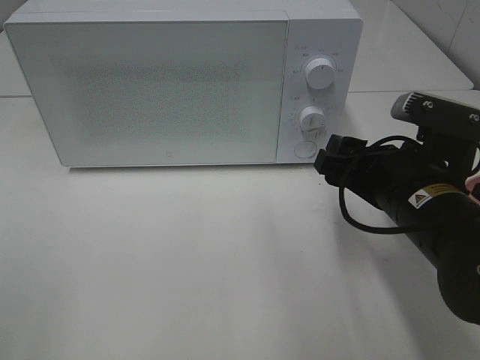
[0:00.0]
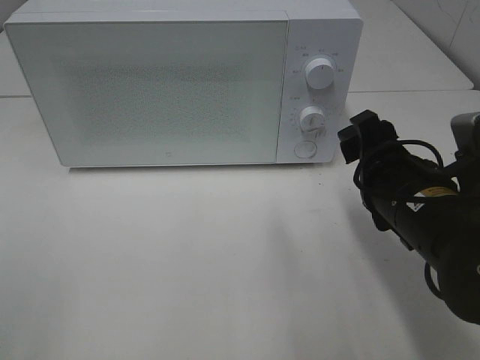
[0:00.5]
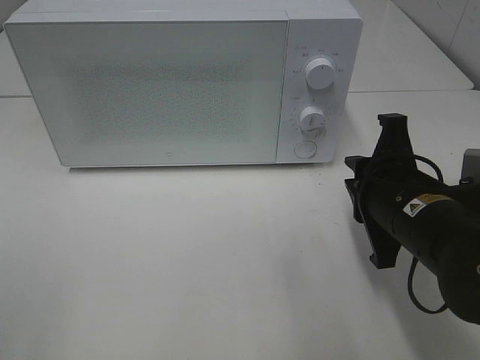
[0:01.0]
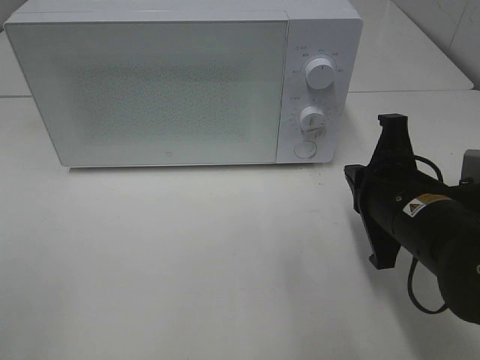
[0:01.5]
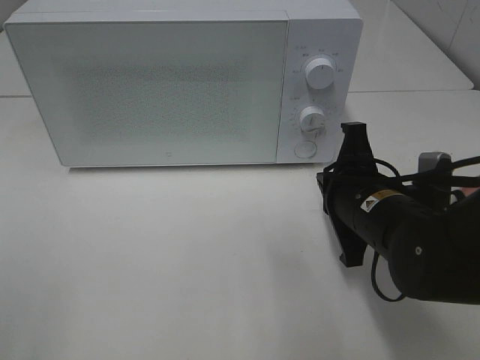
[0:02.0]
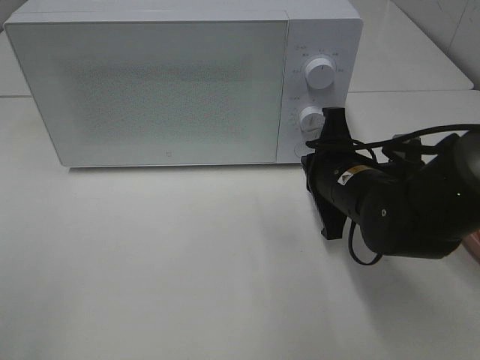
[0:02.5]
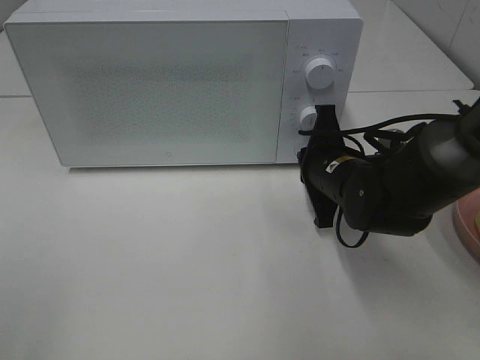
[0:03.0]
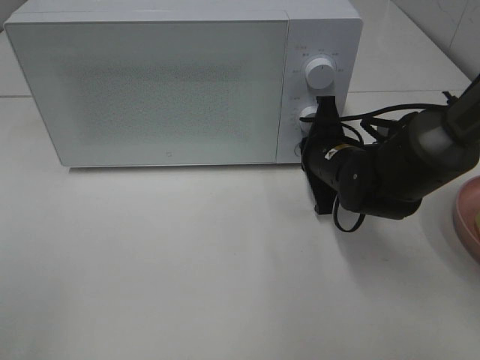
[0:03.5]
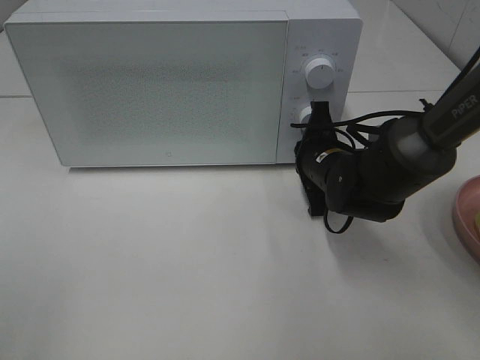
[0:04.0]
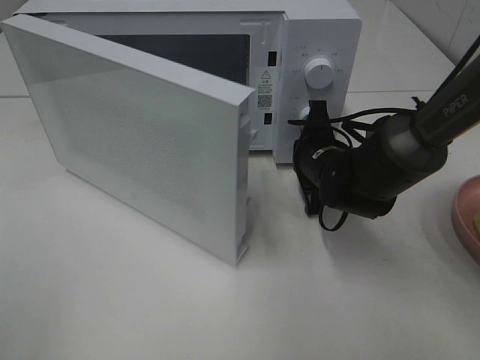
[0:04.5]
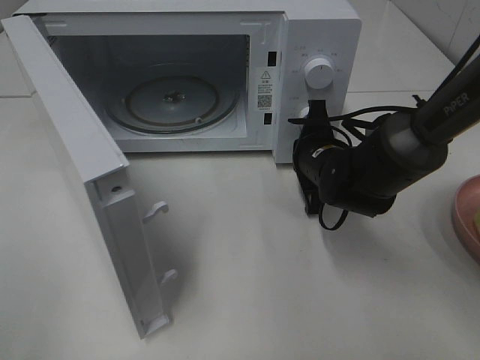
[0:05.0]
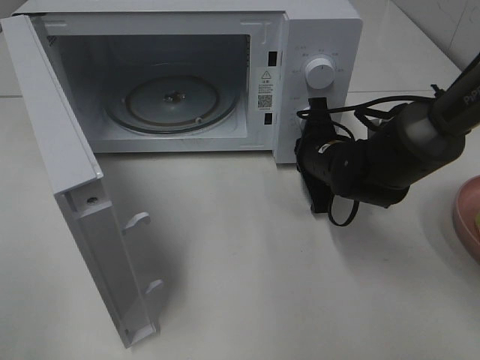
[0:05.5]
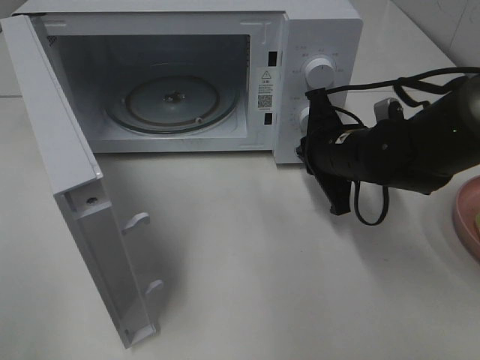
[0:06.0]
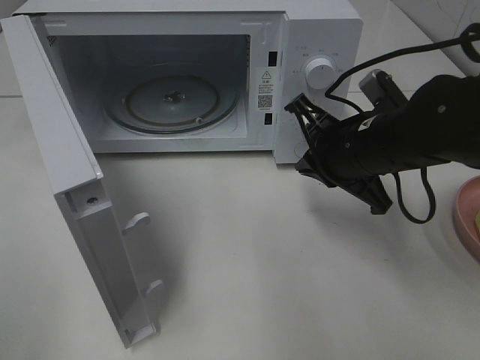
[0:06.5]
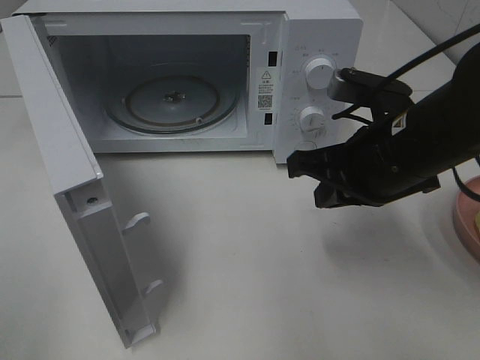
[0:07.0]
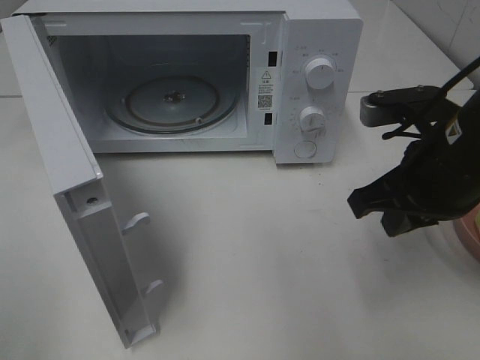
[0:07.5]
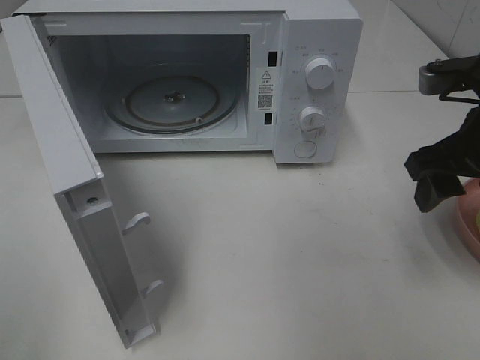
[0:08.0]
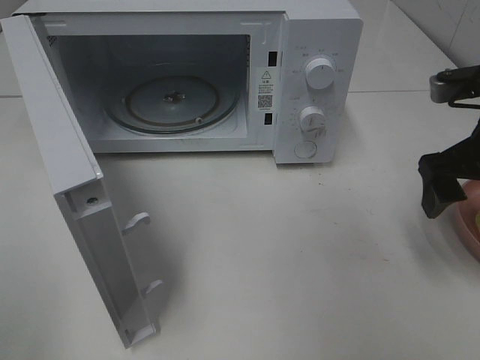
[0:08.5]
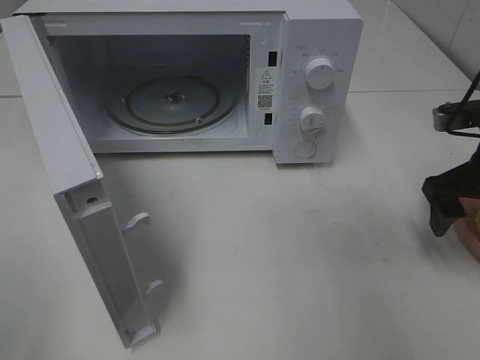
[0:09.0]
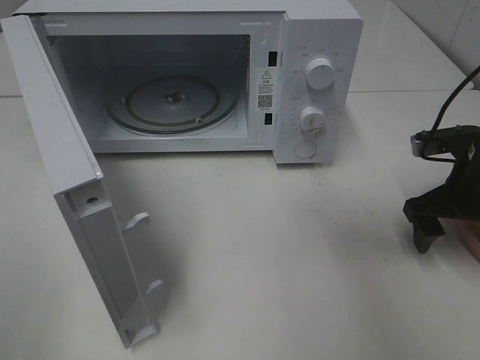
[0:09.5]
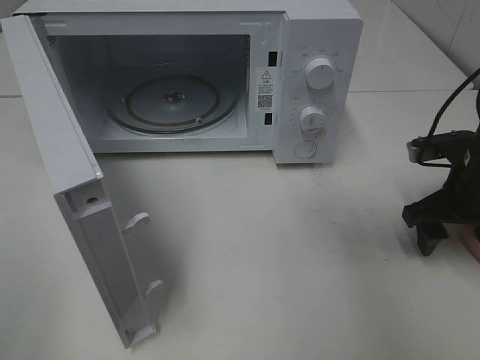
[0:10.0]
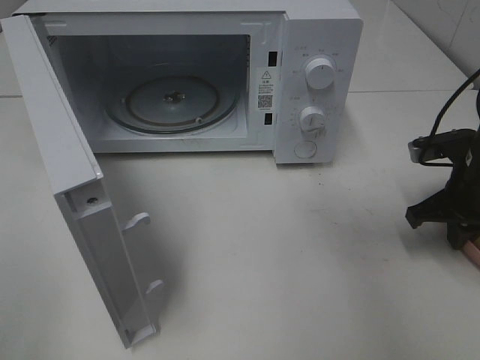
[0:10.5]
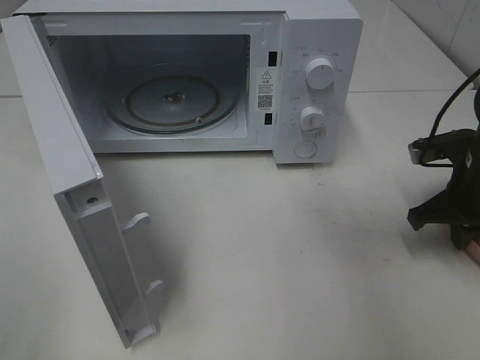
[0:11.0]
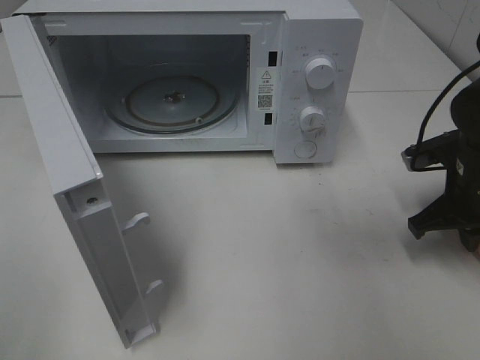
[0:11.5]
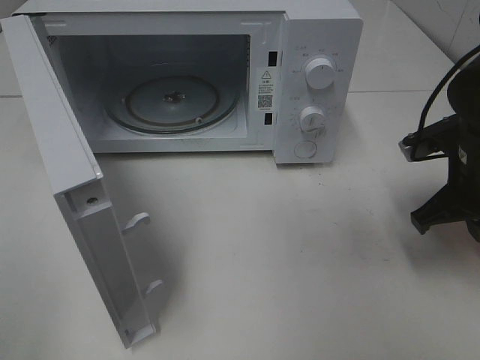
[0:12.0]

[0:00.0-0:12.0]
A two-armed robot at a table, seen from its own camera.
Task of the whole recording: Heat Sandwich.
Step, 0.0 to 5.5 s: Right hand: press the switch.
Step, 6.0 to 11.0 s: Right hand: grab the plate with the sandwich.
0.0 to 2.0 s: The right gripper closes up.
2.0 to 4.0 s: The right gripper shifts approximately 10 cm forward.
4.0 to 6.0 s: The right gripper shifts by some 5 cm.
6.0 to 8.0 s: The right gripper goes about 15 cm upward, to the right and backward, and opens up.
8.0 to 10.0 s: The right gripper is displaced downward by some 10 cm.
10.0 to 12.0 s: The right gripper shifts by approximately 5 cm, and closes its fingers.

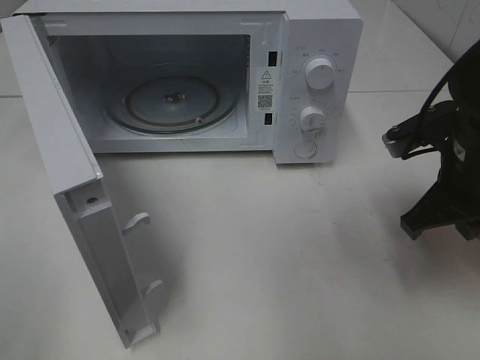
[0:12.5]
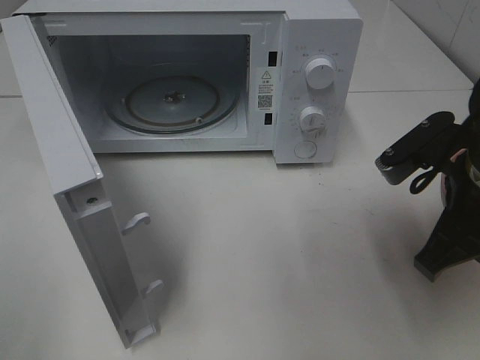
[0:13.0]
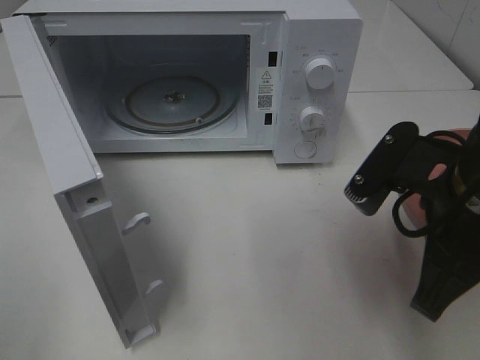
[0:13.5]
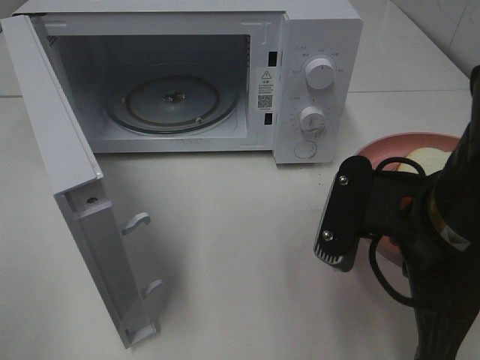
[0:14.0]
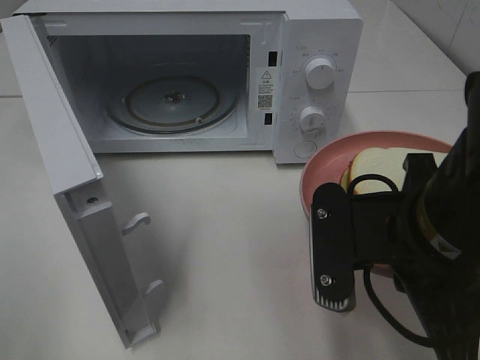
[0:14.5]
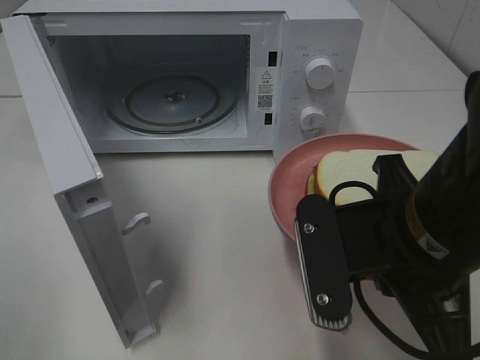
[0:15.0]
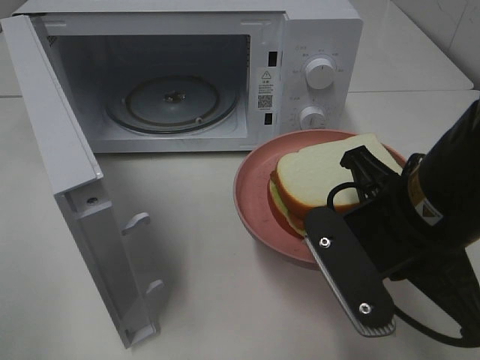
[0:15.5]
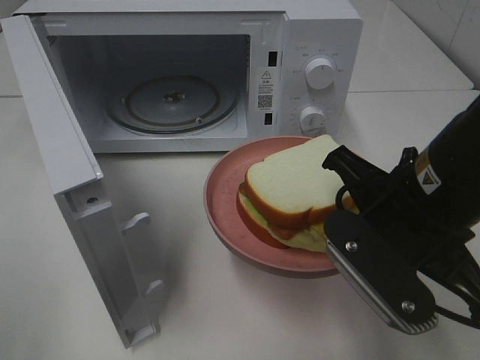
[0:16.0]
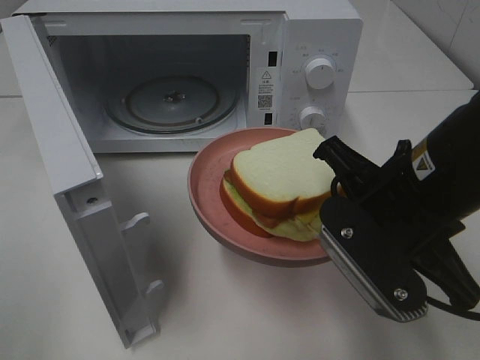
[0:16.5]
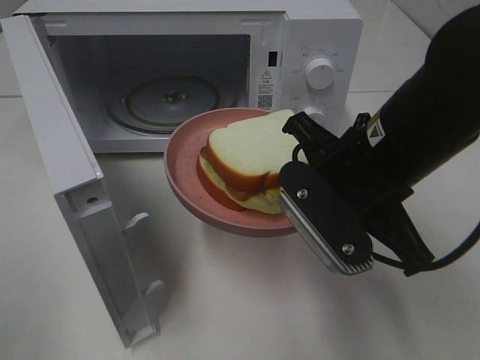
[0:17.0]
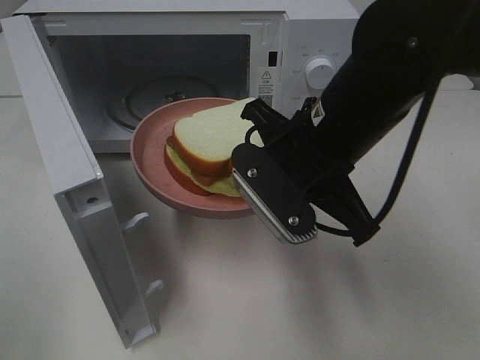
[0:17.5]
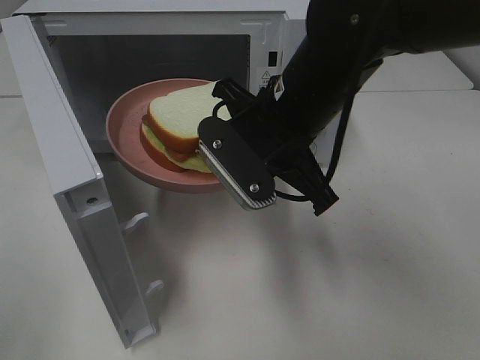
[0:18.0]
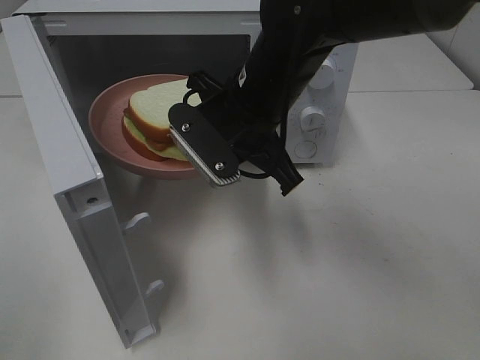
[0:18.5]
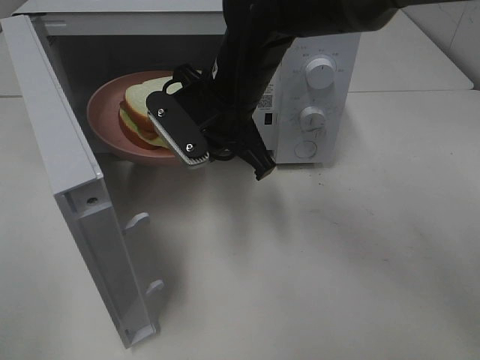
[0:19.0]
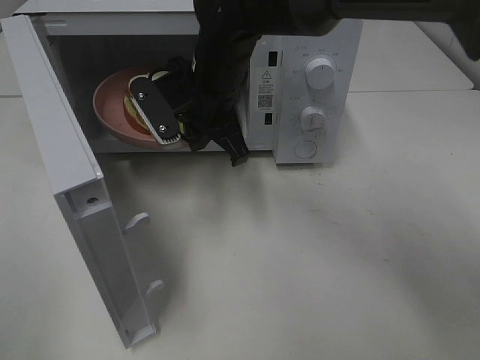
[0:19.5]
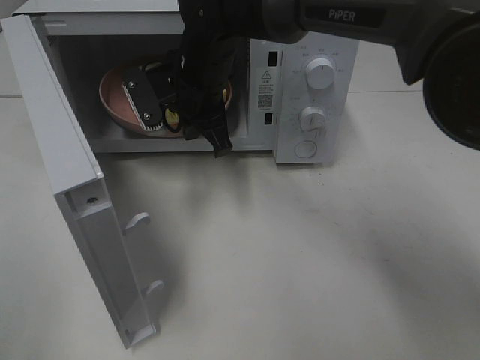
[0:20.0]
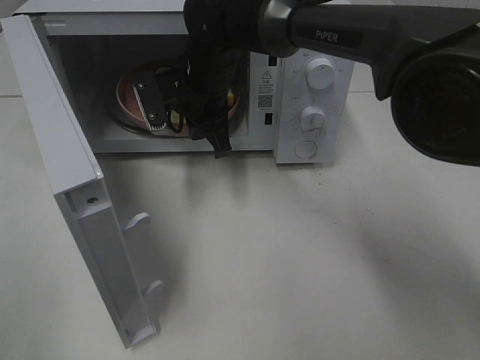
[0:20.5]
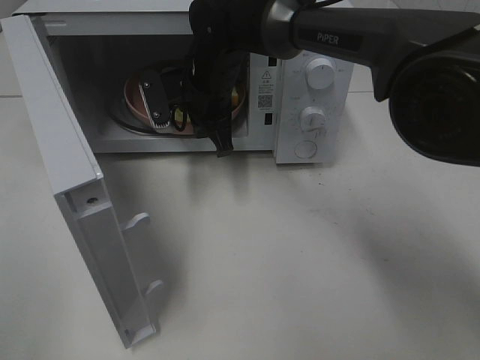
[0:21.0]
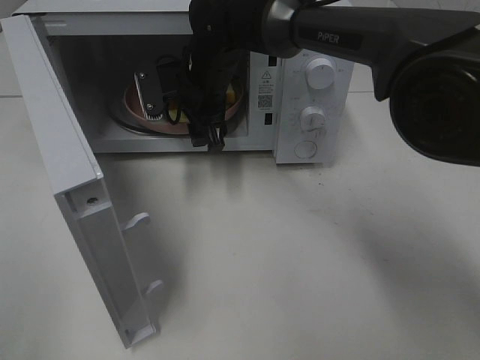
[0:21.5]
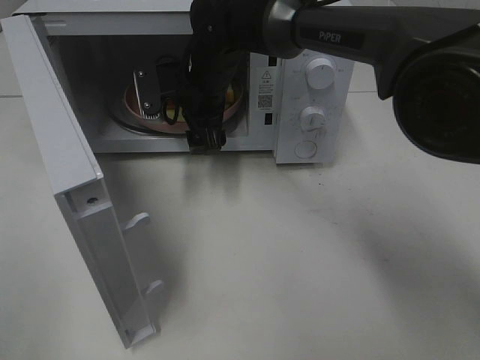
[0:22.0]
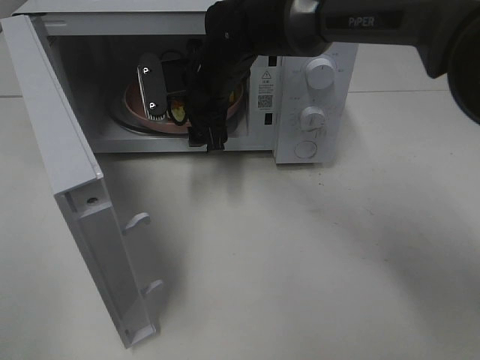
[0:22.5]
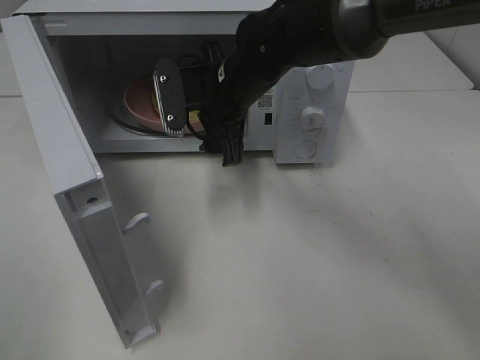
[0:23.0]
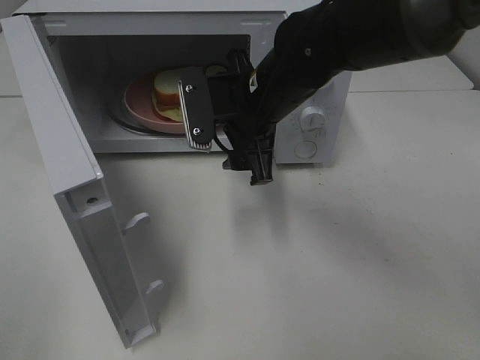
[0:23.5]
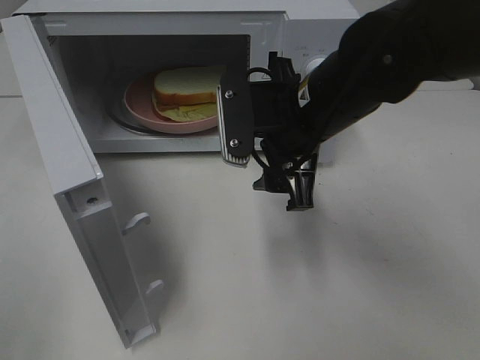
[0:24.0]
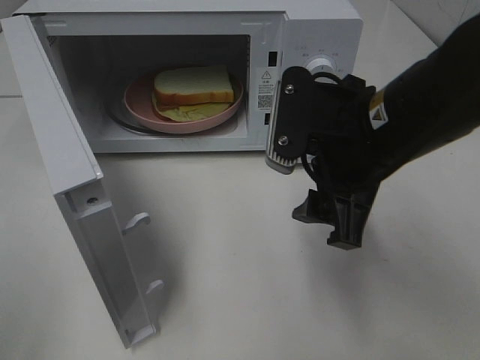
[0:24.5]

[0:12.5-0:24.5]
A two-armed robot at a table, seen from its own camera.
Task of the whole recording: Heat Sandwich.
Step, 12.5 to 23.0 s: Right hand: place the plate in the microwave.
12.5 to 14.5 s: The right gripper shifts about 15 cm backward and to the left.
16.5 to 18.5 s: The right gripper shifts some 15 cm forward and to the left.
18.5 to 20.5 s: The right gripper is displaced forward and to the left by approximately 15 cm.
20.5 to 22.5 s: The right gripper opens.
22.5 to 24.5 s: The right gripper shifts some 25 cm backward and to the right.

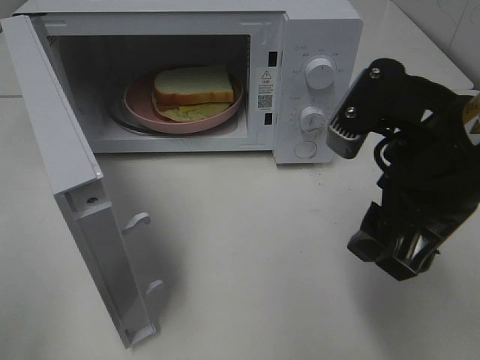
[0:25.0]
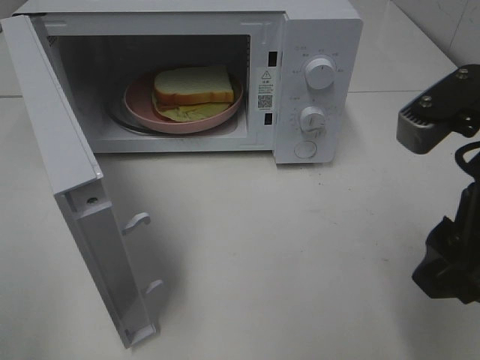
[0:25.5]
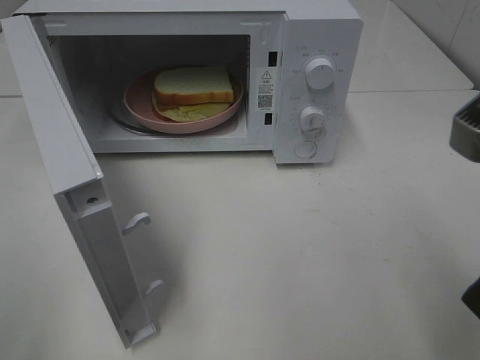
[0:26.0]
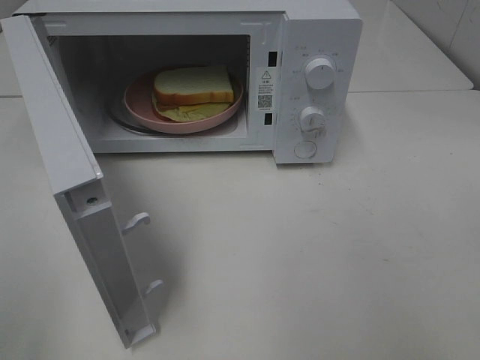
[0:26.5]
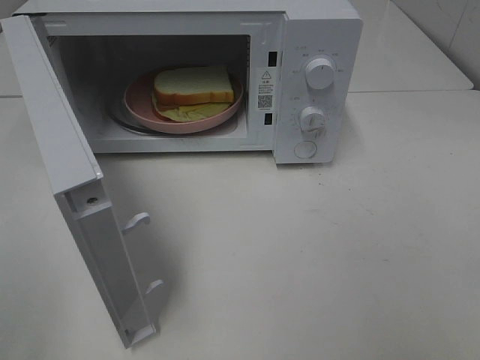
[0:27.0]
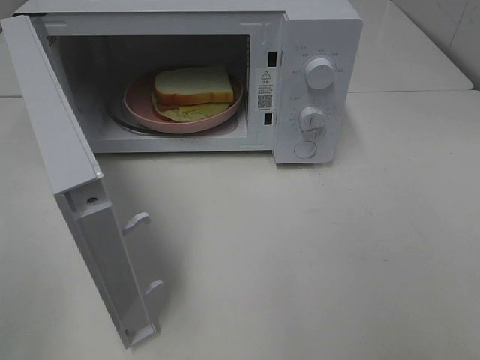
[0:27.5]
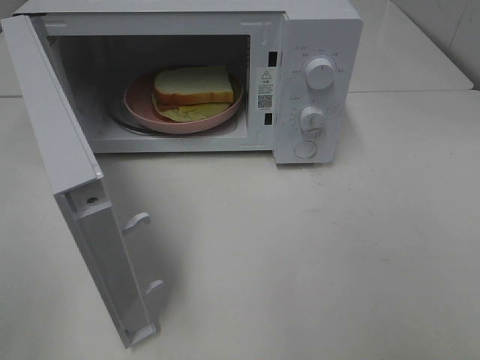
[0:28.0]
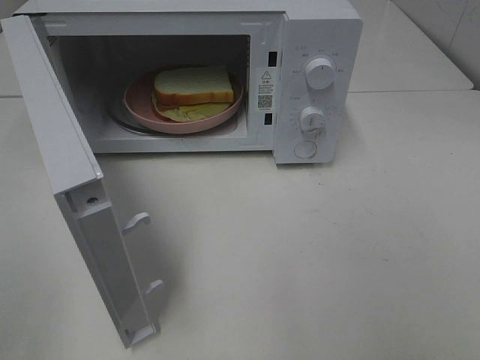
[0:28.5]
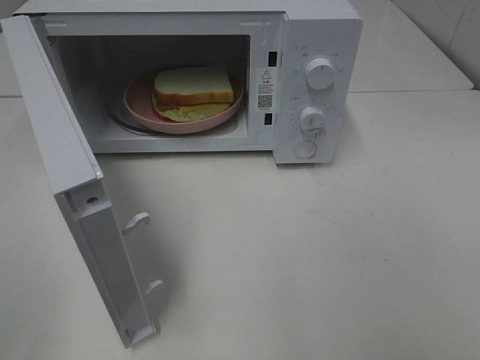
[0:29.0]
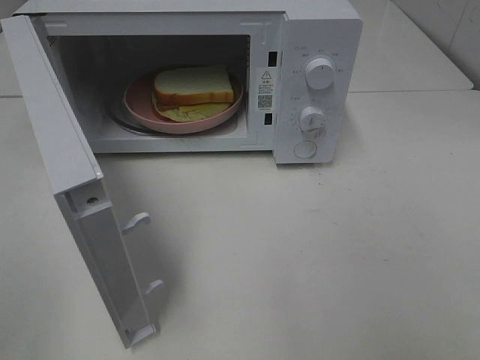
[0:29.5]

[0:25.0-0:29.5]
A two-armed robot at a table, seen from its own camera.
Task of the whole recording: Heat Sandwich.
25.0 to 27.0 s: The right gripper goes roughly 20 cm backward and to the right.
